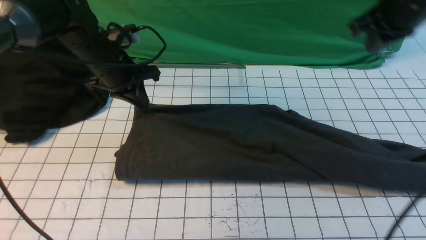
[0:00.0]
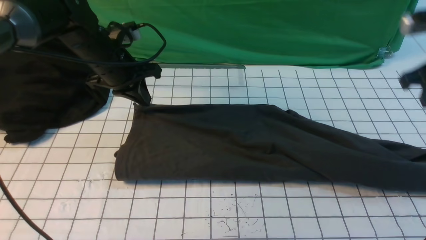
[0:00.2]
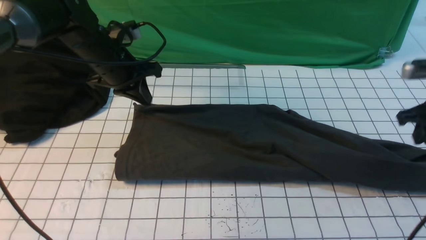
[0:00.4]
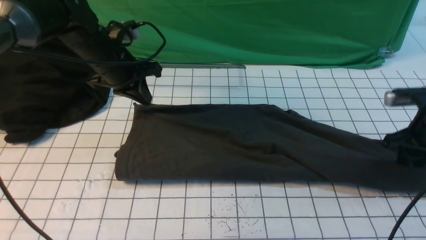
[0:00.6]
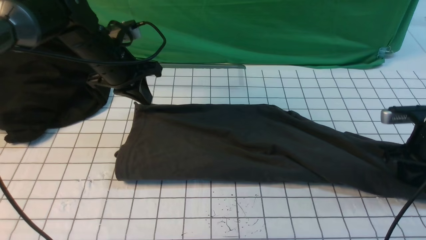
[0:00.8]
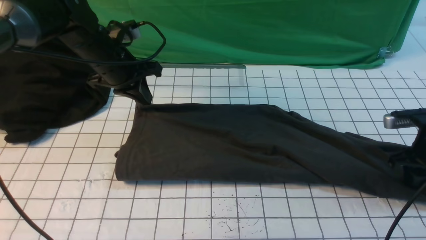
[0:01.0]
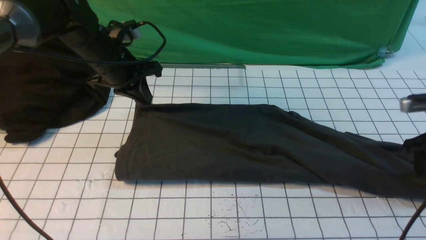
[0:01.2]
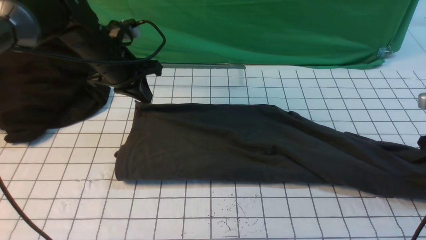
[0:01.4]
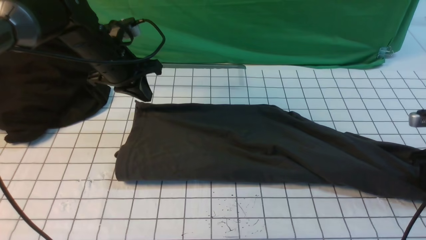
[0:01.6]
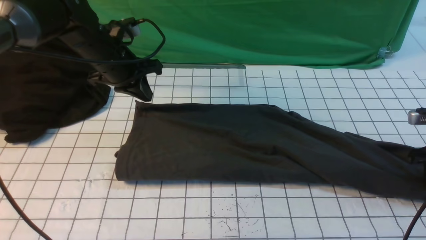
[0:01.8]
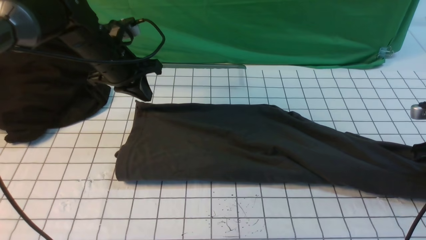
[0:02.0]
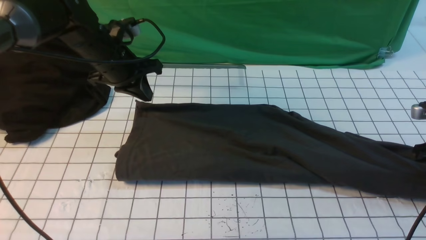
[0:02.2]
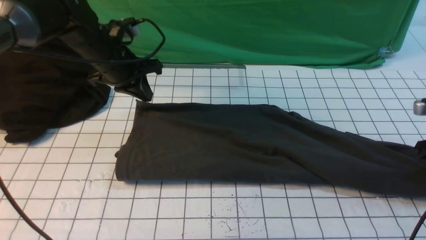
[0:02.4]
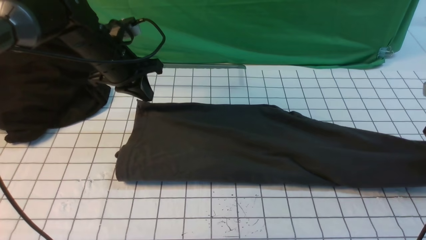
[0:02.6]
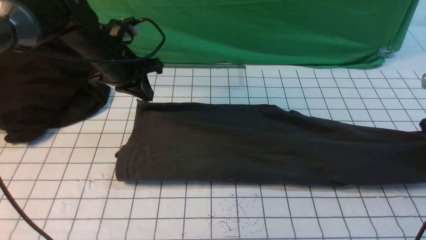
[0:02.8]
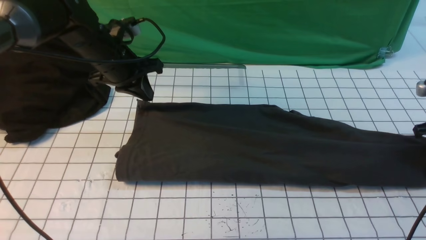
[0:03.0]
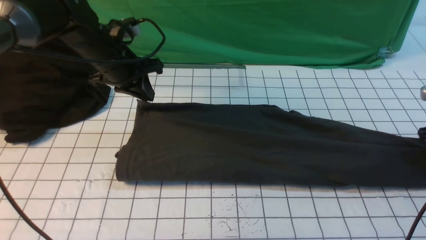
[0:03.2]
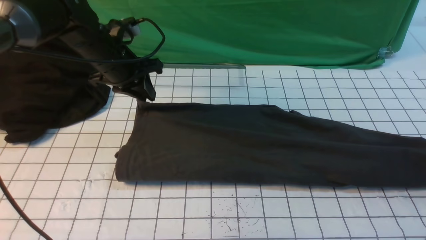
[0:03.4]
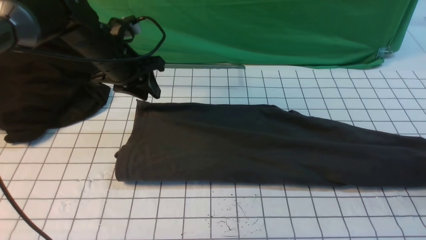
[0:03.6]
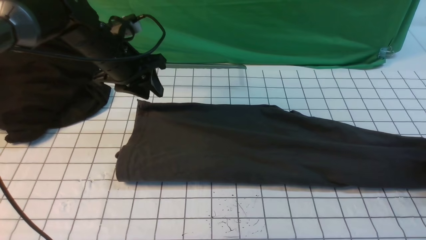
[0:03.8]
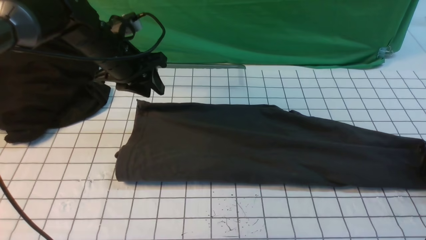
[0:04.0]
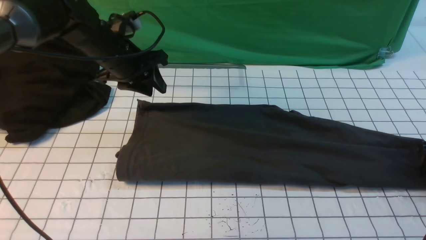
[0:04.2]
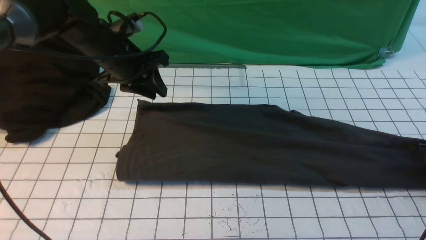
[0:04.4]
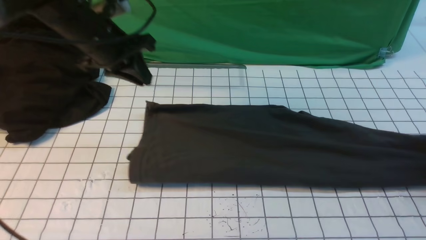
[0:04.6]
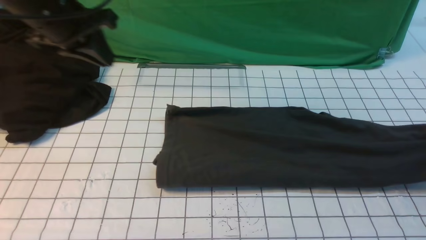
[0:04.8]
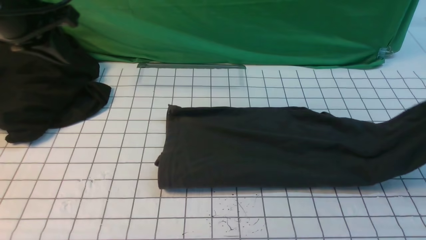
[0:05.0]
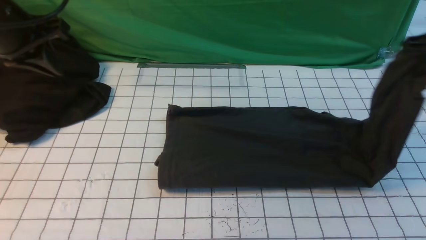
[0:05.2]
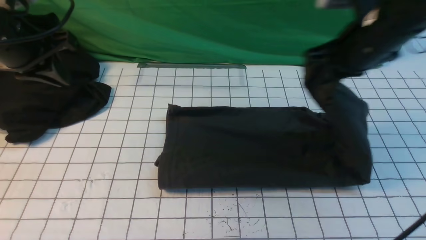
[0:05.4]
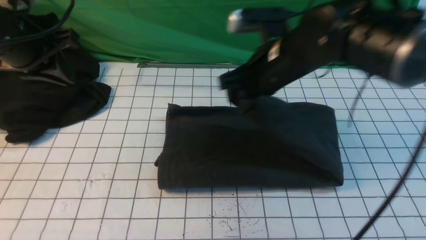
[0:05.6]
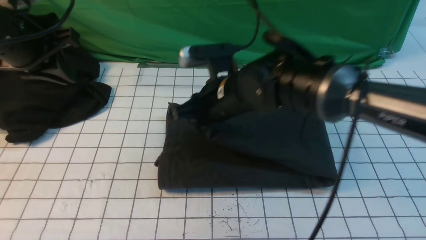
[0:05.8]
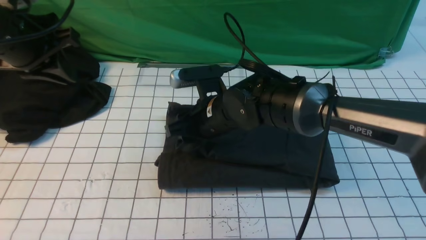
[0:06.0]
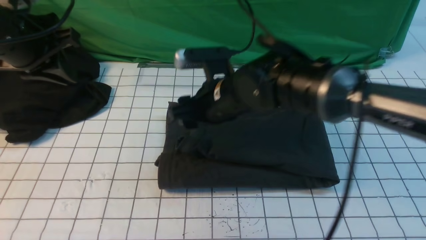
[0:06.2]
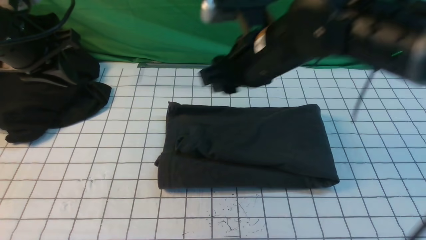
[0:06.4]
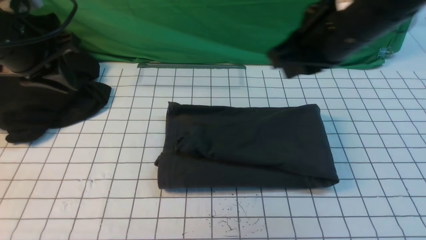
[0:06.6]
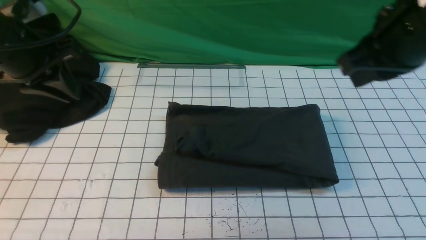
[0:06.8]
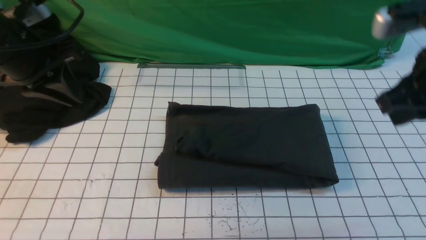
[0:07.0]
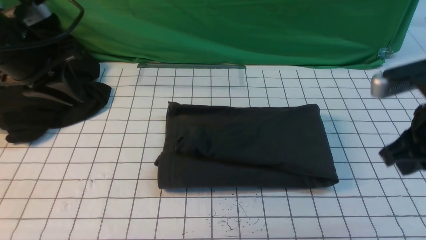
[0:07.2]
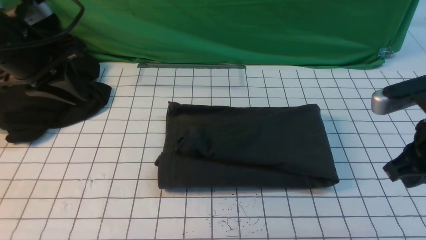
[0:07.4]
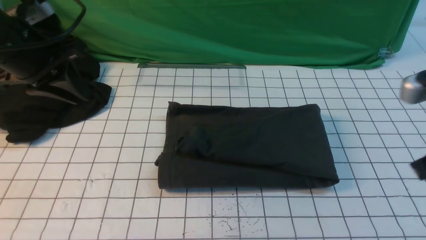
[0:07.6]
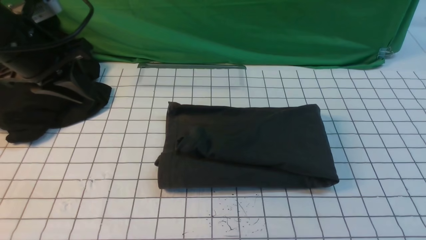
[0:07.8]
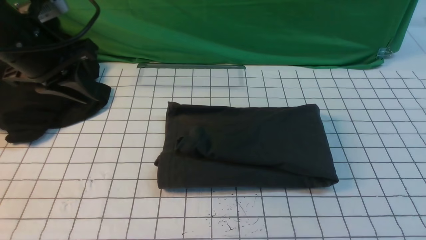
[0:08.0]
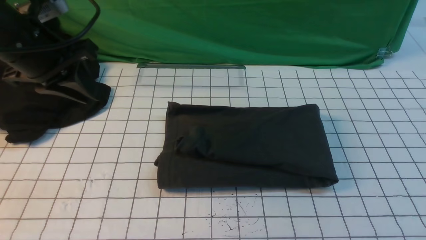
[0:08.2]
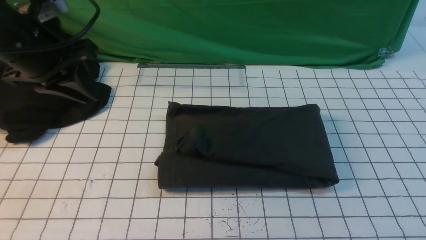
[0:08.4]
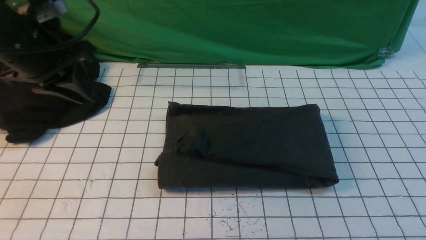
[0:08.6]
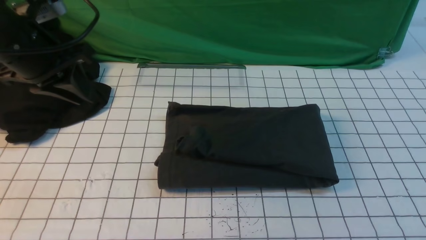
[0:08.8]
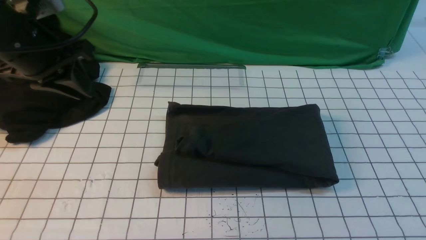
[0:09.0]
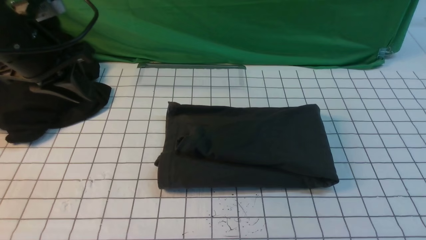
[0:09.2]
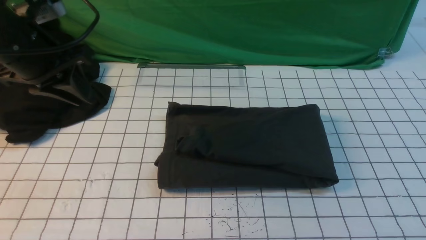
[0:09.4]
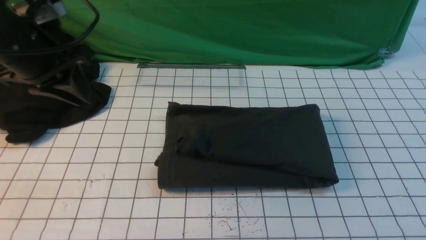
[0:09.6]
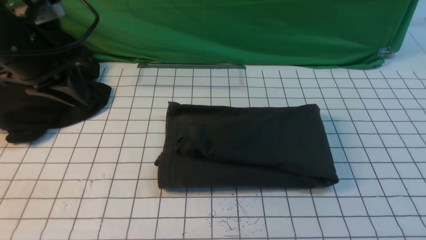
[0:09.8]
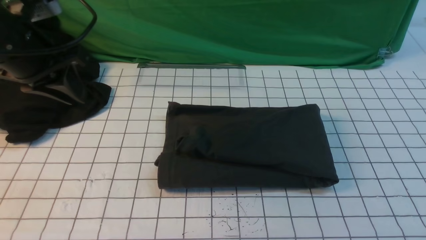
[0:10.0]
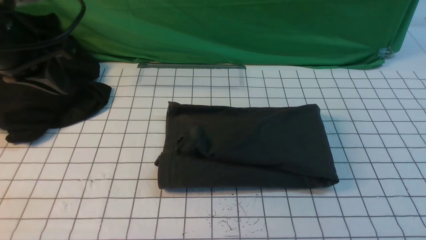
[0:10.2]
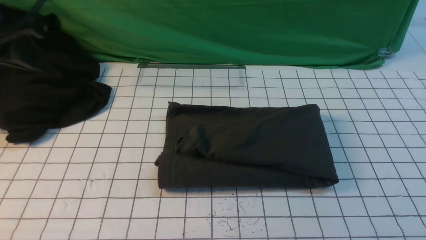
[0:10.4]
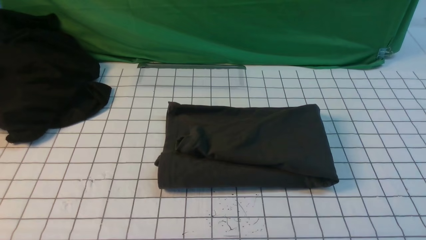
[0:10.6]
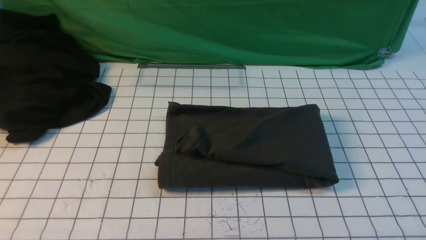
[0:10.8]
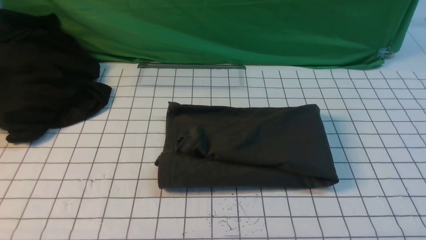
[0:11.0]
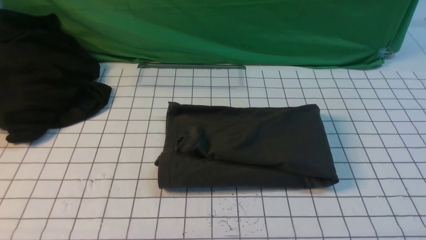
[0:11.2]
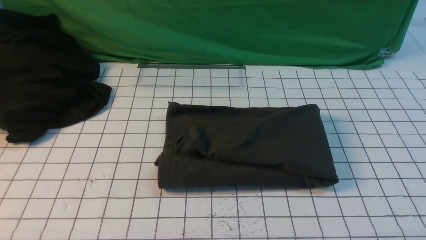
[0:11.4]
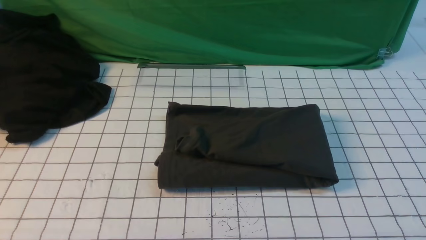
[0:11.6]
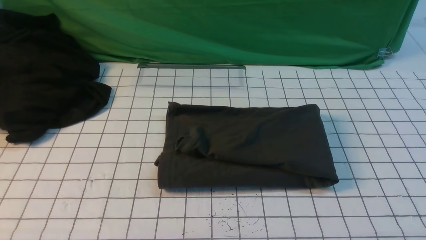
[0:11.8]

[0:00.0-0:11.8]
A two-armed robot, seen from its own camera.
Step, 0:00.4 to 0:04.8: use the right arm to clamp the right edge of the fabric.
Step, 0:05.0 to 0:06.2: use the right arm to drag the right edge of the fabric to the left and folds it over the left edge.
0:00.0 to 0:01.4: The right gripper moves downward and to the right, about 20 cm, and opens up.
0:01.4 to 0:03.0: The right gripper closes and opens again.
0:03.0 to 0:04.4: The right gripper opens, then closes again.
0:04.4 to 0:06.0: The right gripper moves to the left, some 40 cm, and opens its fingers; the left gripper travels to the left, backward and upward by about 15 cm.
0:06.0 to 0:07.4: The right gripper heads to the right and backward, covering approximately 30 cm, and closes its fingers.
0:07.4 to 0:08.8: The right gripper travels backward by roughly 20 cm.
0:08.8 to 0:10.4: The left gripper travels upward and backward by approximately 15 cm, and closes.

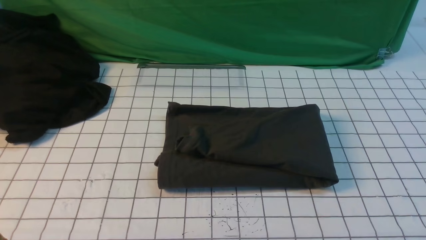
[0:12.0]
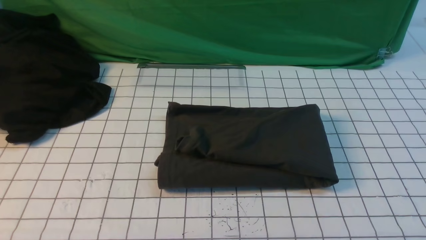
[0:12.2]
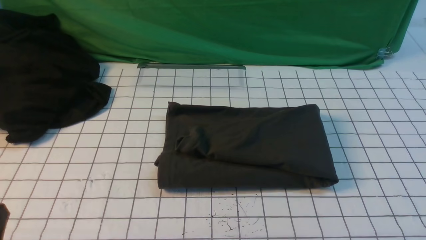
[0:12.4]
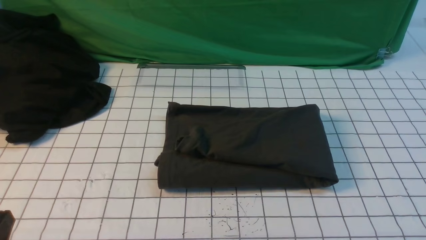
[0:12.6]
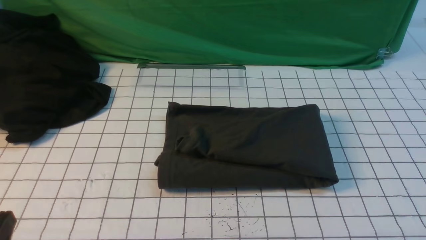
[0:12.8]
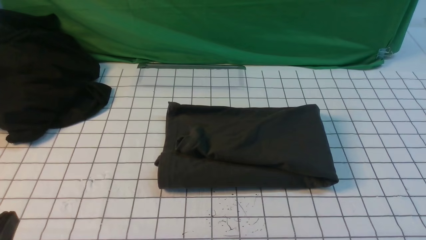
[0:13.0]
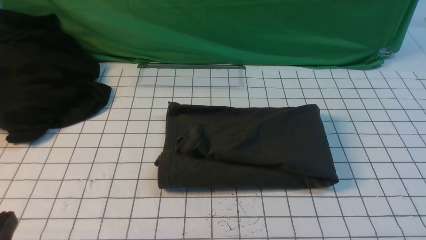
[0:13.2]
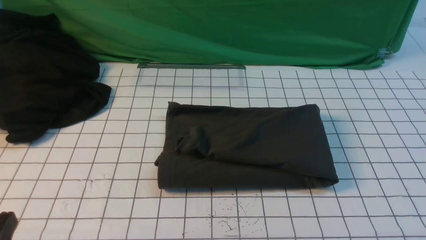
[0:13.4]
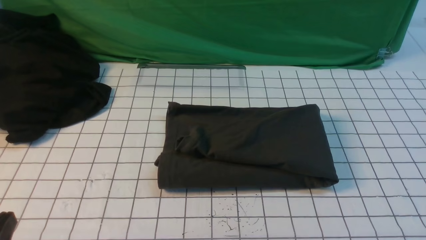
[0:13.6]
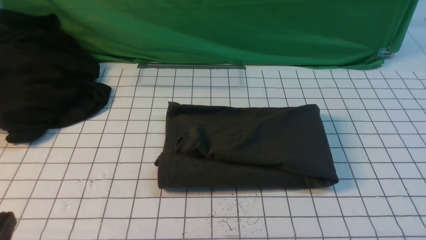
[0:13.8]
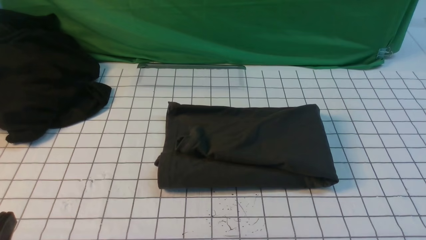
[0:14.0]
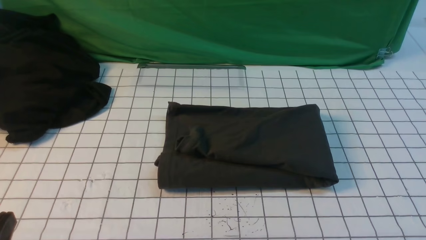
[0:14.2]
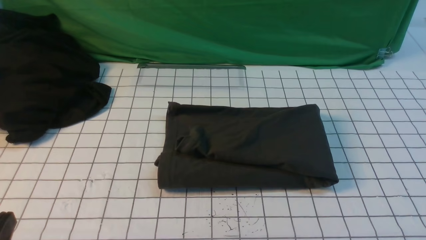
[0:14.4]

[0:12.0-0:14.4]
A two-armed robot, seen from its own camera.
0:13.2 to 0:14.4: Neither gripper changes place.

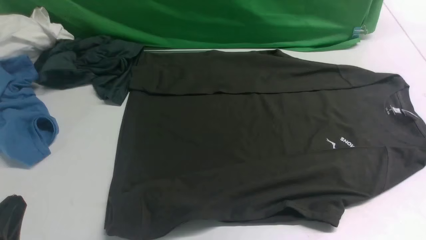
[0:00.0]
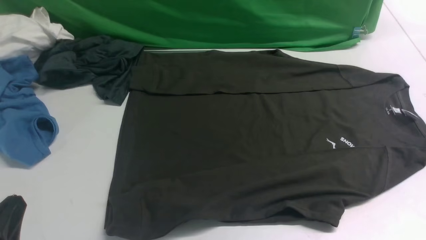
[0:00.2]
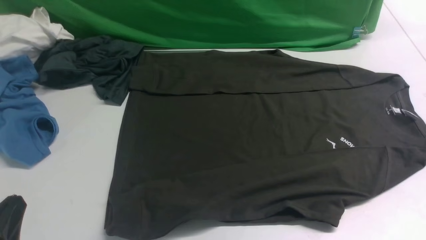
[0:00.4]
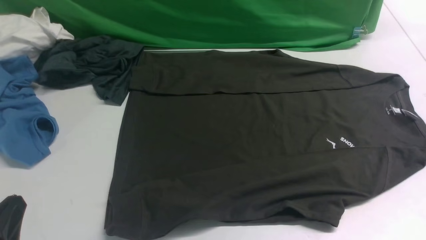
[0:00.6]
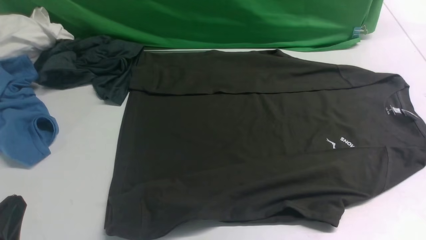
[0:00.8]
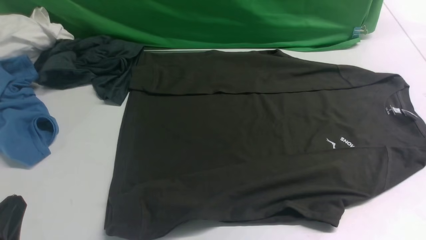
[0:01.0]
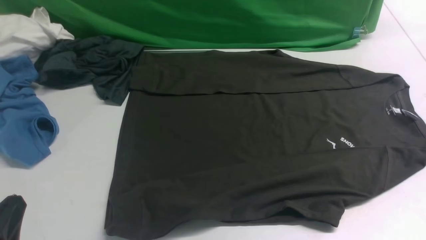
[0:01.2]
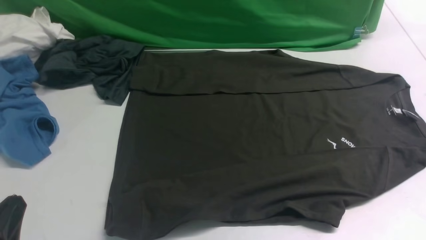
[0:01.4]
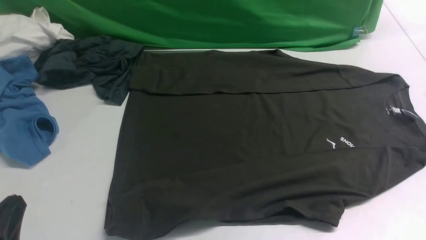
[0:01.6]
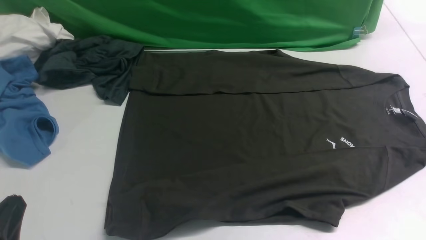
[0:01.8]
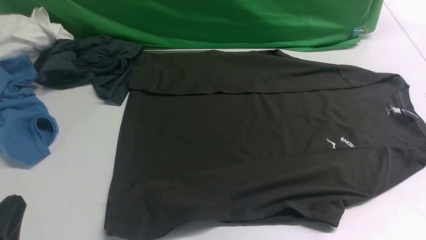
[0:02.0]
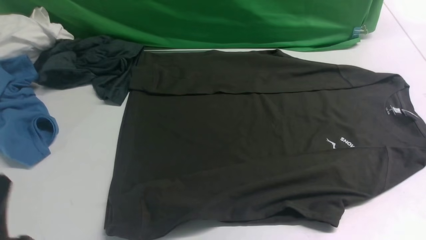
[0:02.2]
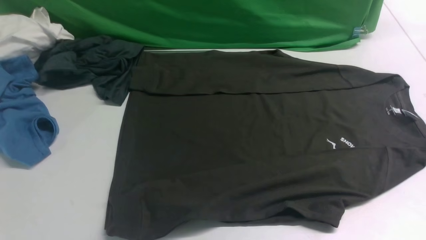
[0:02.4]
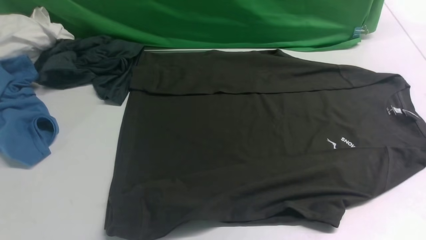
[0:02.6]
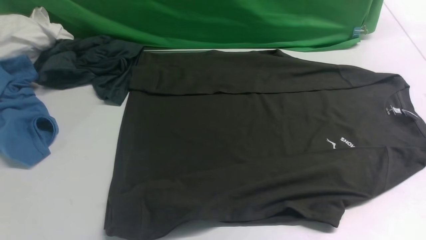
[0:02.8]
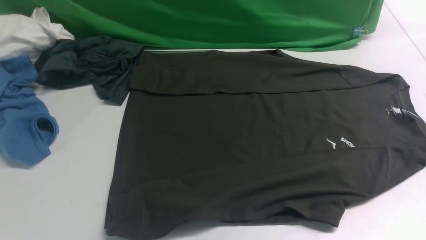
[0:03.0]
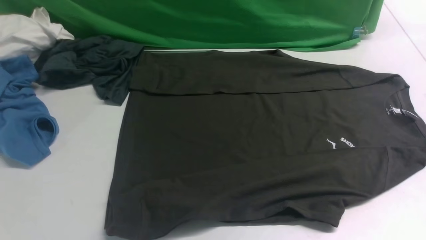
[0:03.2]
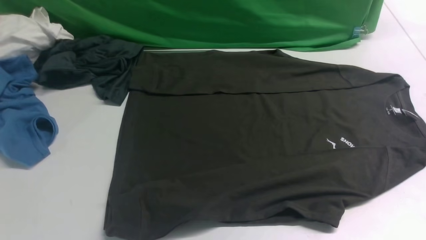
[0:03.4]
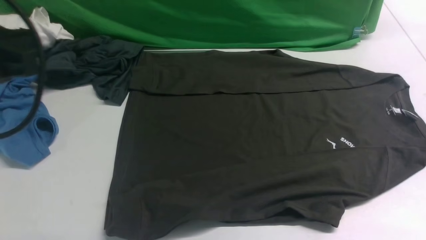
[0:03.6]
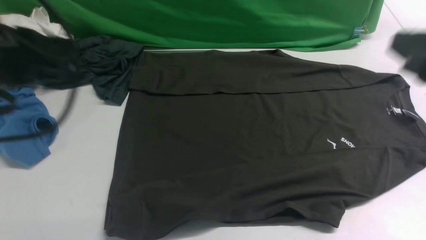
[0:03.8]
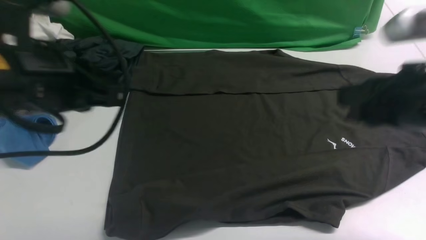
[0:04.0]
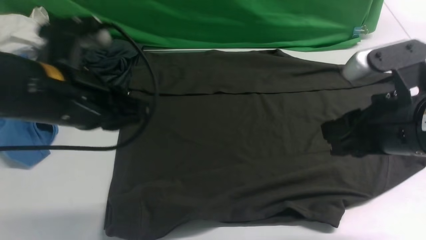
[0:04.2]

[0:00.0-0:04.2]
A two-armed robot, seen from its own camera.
0:00.0 to 0:01.4: Neither gripper changes place.
0:01.4 to 0:02.8: The left gripper heads upward, covering approximately 15 cm.
0:02.8 to 0:04.2: The left gripper moves forward and to the right, some 20 cm. The right gripper travels forward and to the left by about 20 cm.
